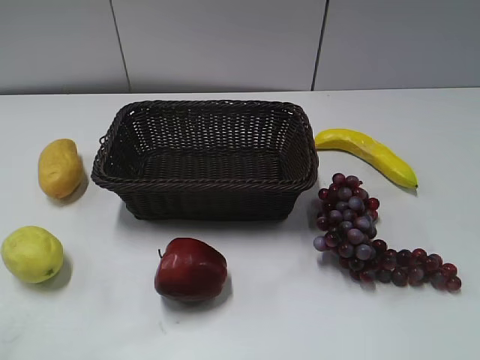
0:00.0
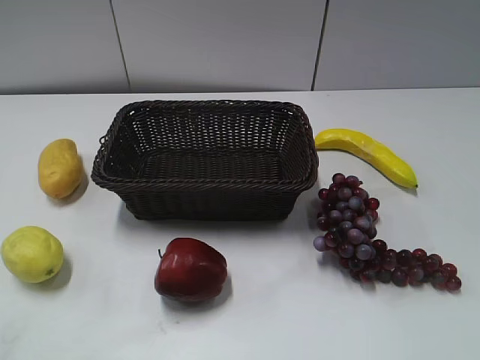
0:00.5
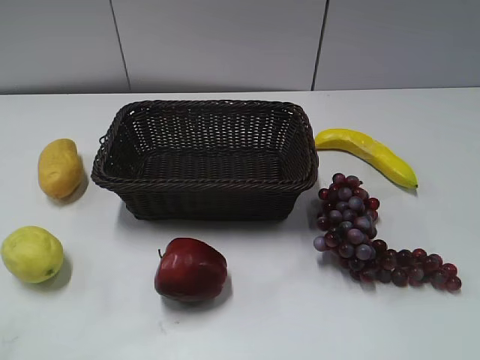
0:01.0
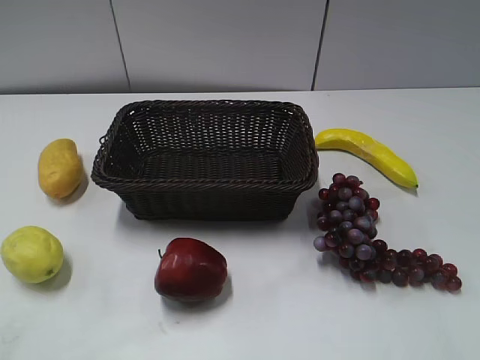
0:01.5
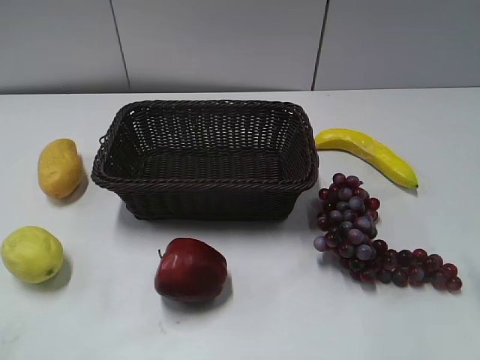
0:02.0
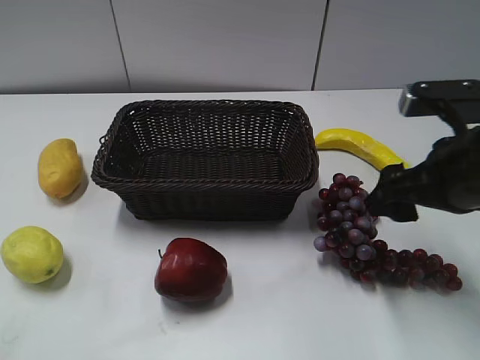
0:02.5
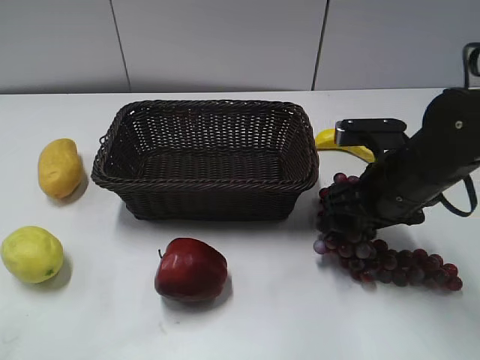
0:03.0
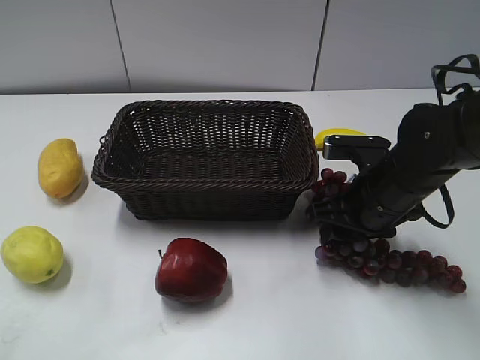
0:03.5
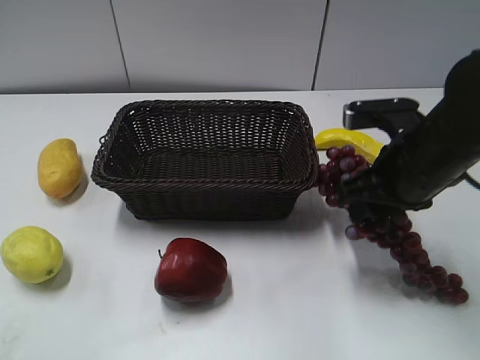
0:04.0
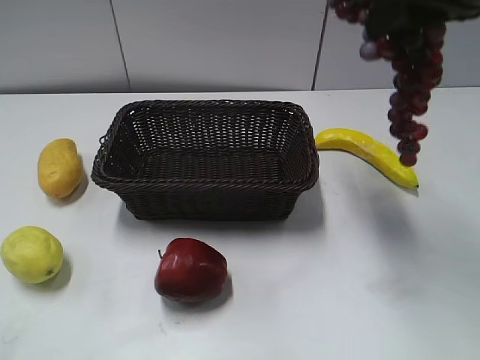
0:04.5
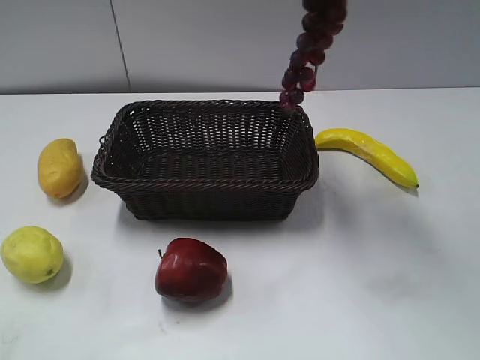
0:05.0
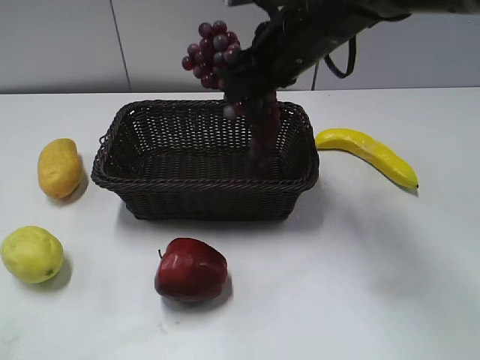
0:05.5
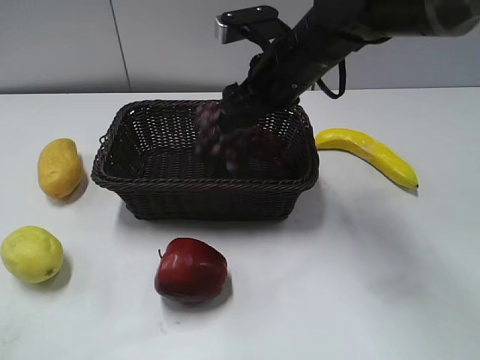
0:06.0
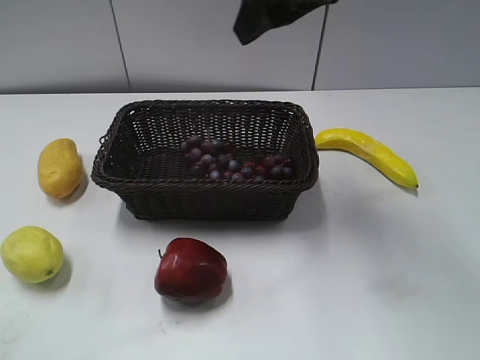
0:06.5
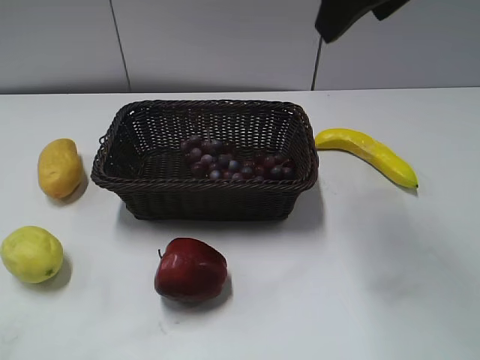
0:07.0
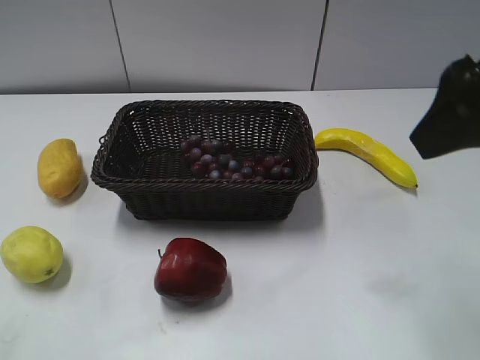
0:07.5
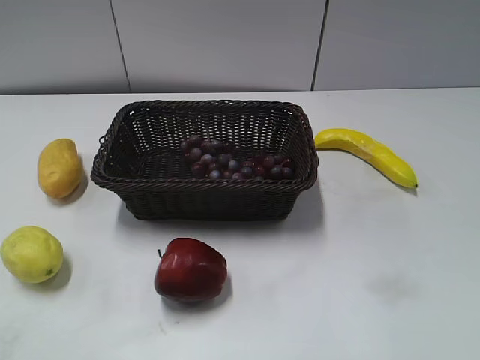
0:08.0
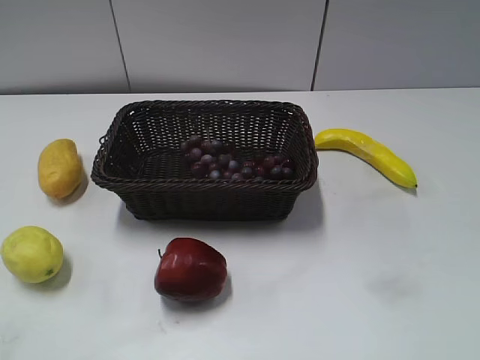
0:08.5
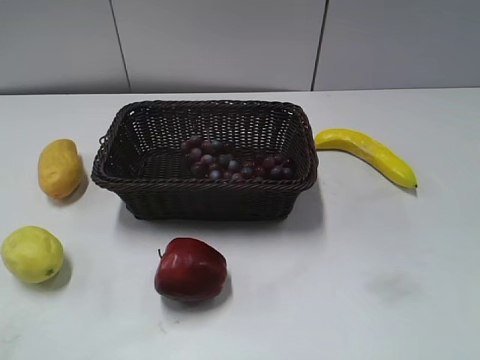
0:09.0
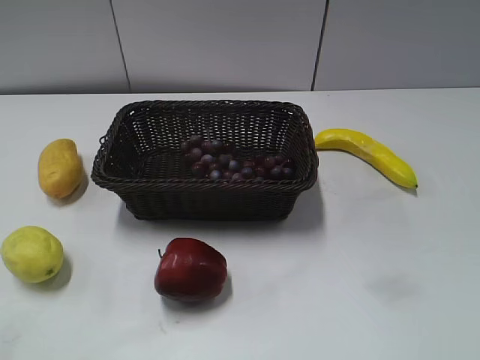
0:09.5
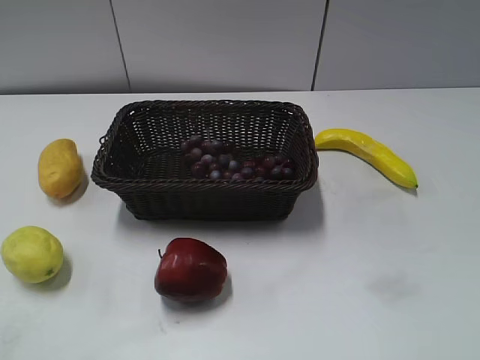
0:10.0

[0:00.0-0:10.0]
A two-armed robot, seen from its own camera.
Step, 0:02.0 to 0:04.0: Grasp the grape with right gripper.
Step, 0:04.5 to 0:06.0: Place the grape in the basket with right gripper.
0:02.0 to 0:04.0: The right gripper travels to the left, forward and downward by roughly 15 cm, and closes up.
0:04.0 to 0:06.0: The right gripper travels to the left and forward by approximately 15 cm, moves about 20 cm upward and comes back, and opens its fingers.
0:06.0 to 0:08.0: The right gripper travels backward and to the right by roughly 35 cm.
